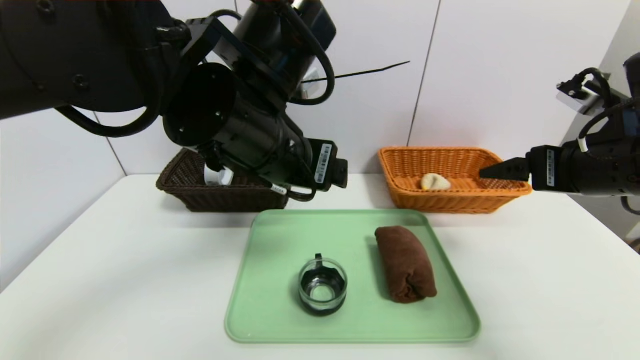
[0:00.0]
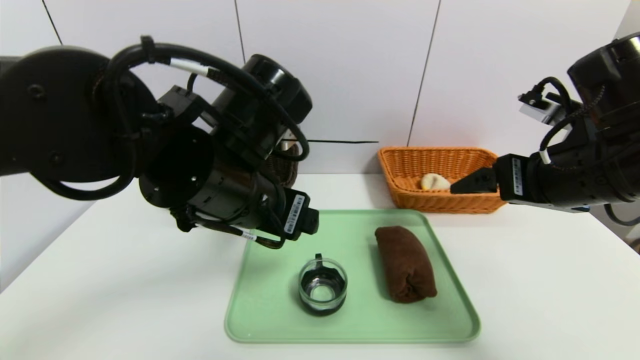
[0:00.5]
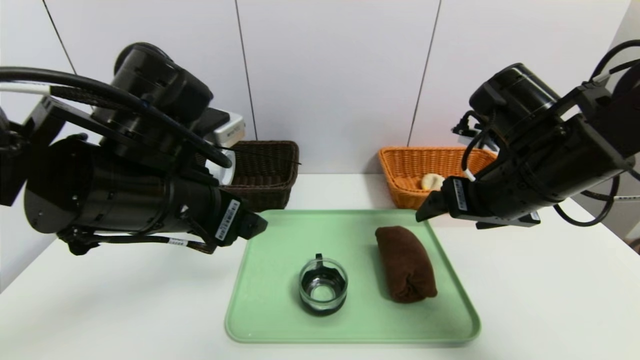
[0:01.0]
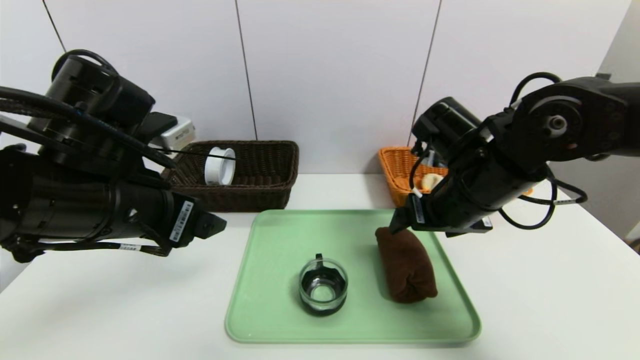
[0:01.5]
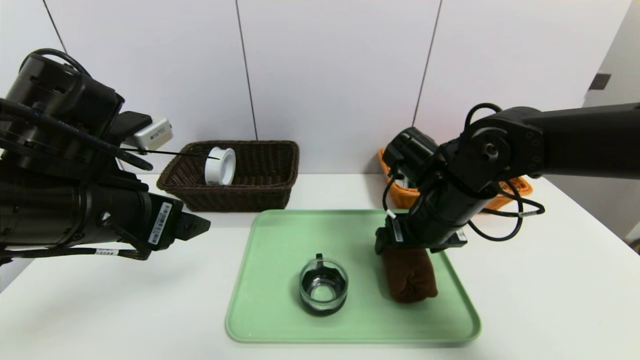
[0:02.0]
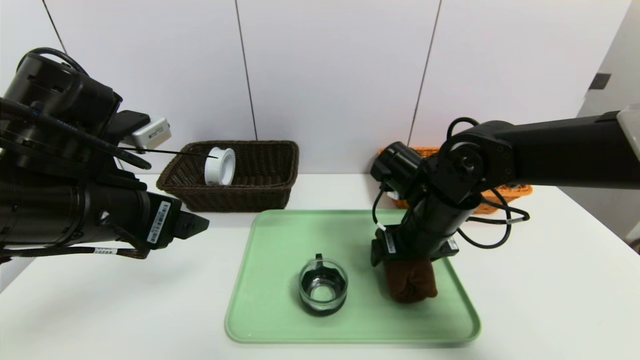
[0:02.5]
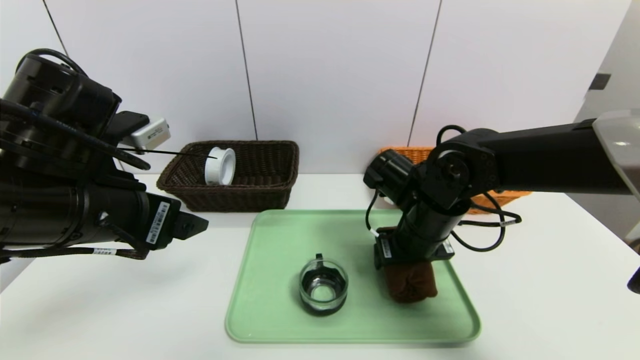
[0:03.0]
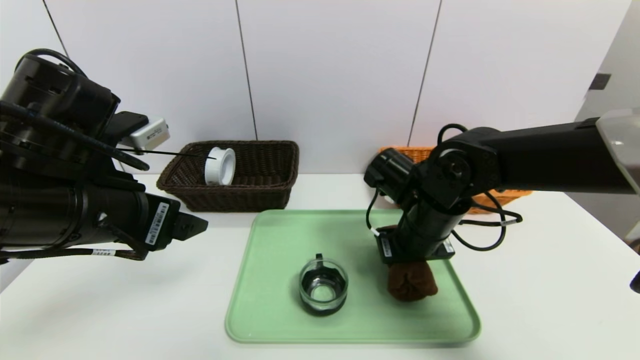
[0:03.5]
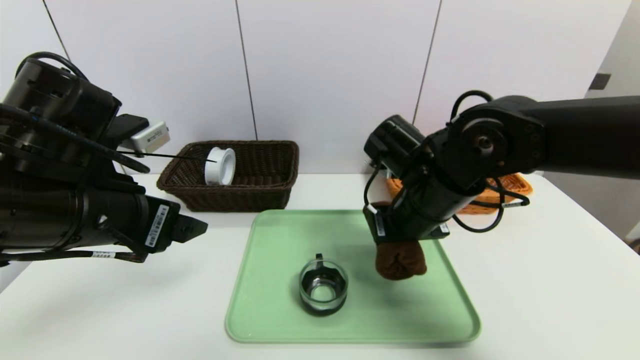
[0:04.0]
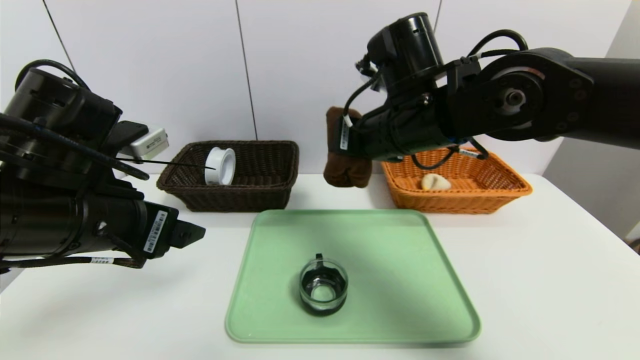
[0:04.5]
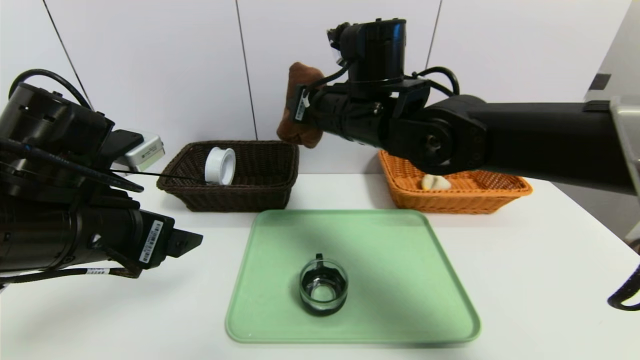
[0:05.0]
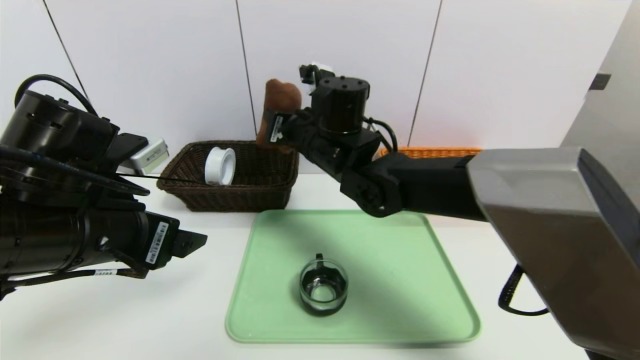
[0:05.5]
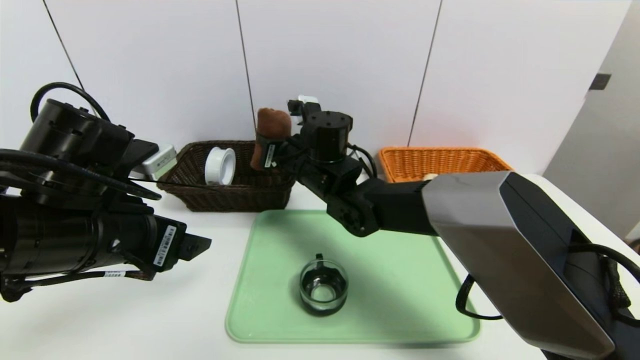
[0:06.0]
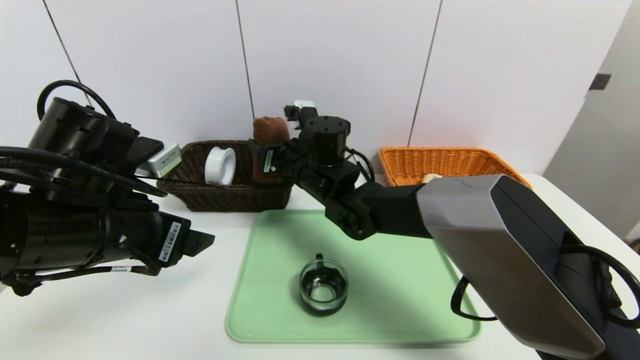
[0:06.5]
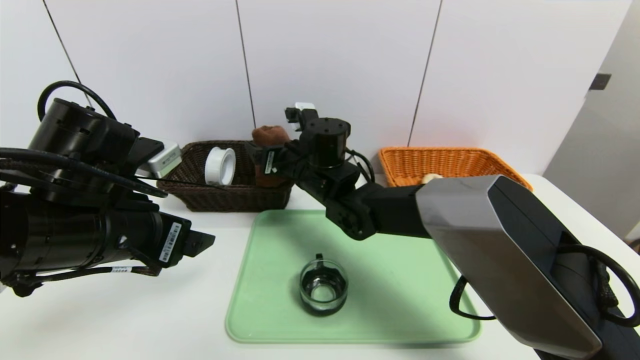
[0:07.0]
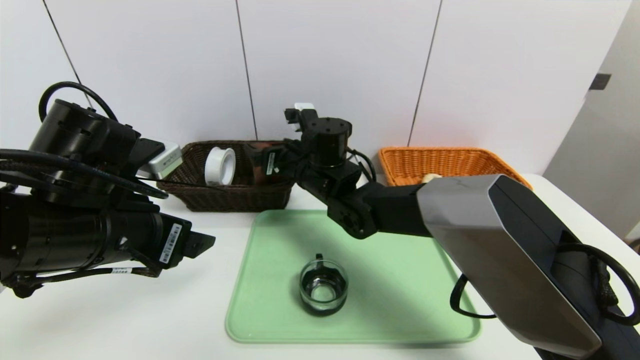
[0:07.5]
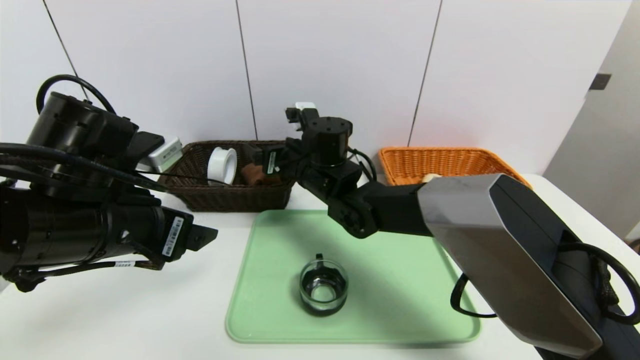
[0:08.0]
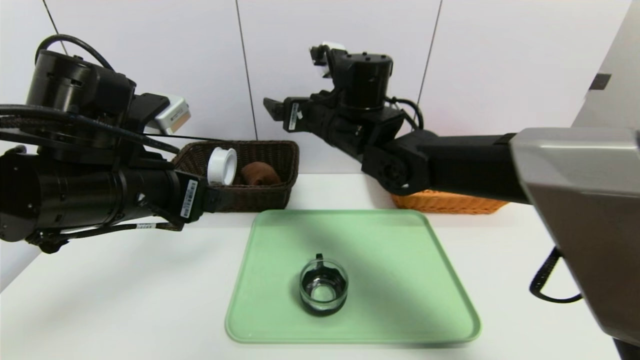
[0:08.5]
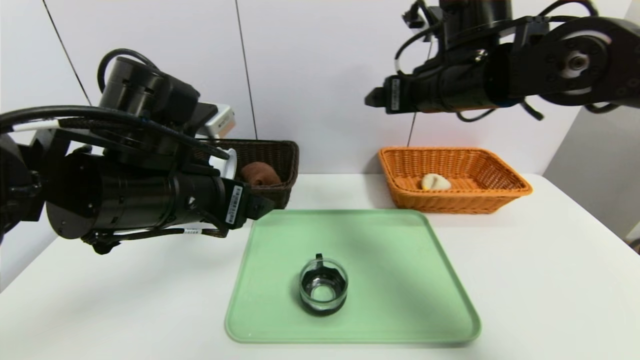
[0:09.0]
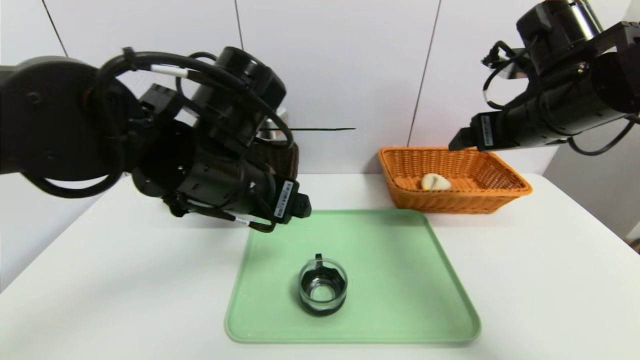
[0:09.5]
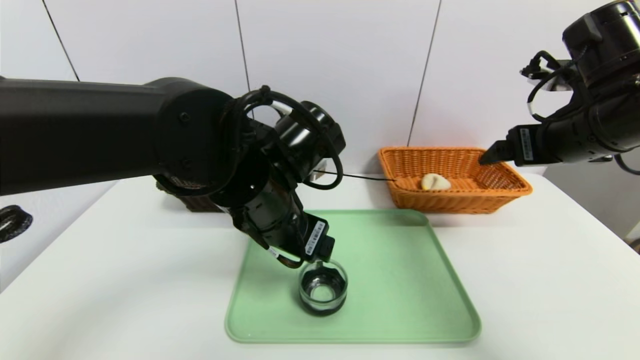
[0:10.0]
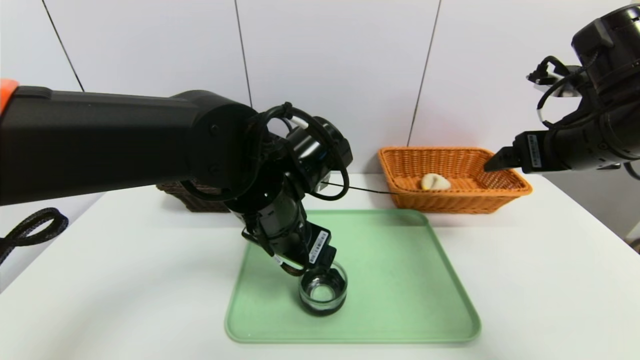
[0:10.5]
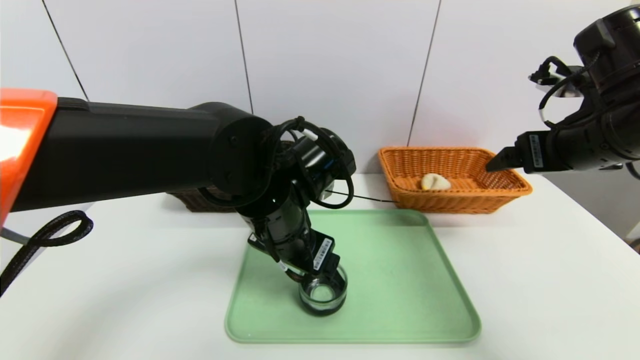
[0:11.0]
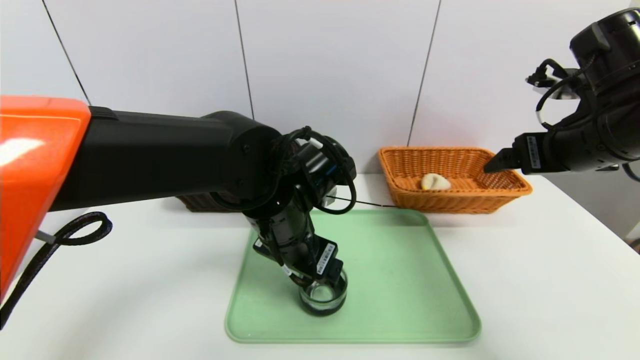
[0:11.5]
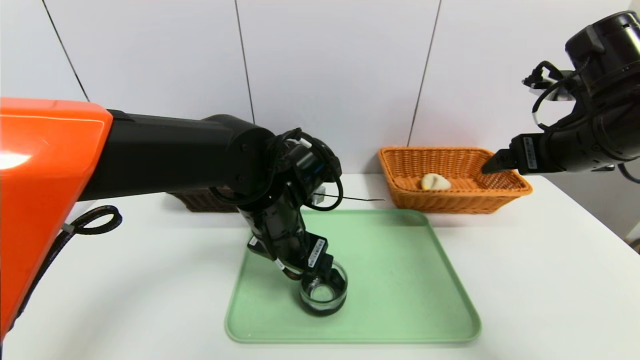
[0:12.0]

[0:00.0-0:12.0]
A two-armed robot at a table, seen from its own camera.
Task of the whole recording: place the food in the right basket with the right gripper, and place the non food items in the left basket with the left gripper.
Step, 0:00.0 to 0:07.5: Grasp the brown towel and put it in the left basket.
0:00.0 to 0:02.0: The left gripper moves to the left, approximately 15 cm. Meanwhile the right gripper moves to the left, downward and forward, some 20 cm.
0:02.0 to 0:04.0: The right gripper closes its fingers.
0:04.0 to 0:06.0: The right gripper moves to the left and forward, approximately 15 cm.
0:06.0 to 0:08.0: The right gripper opens its fingers.
0:08.0 to 0:10.0: The left gripper shifts some 15 cm to the right, while the right gripper is displaced to the right, backward and upward by some 35 cm.
0:10.0 to 0:12.0: The left gripper moves approximately 5 cm.

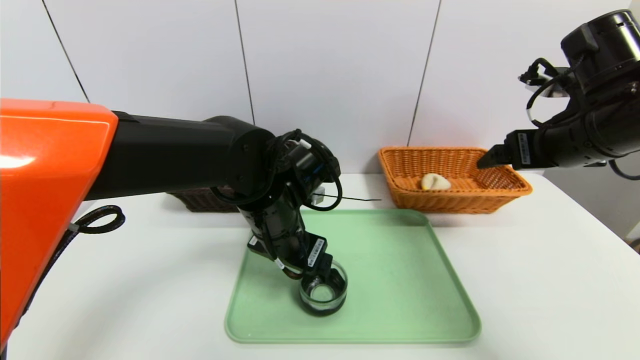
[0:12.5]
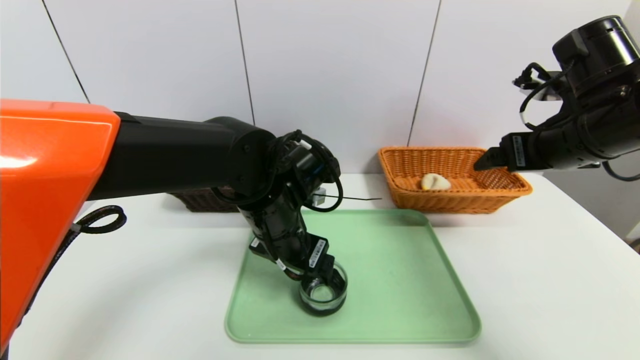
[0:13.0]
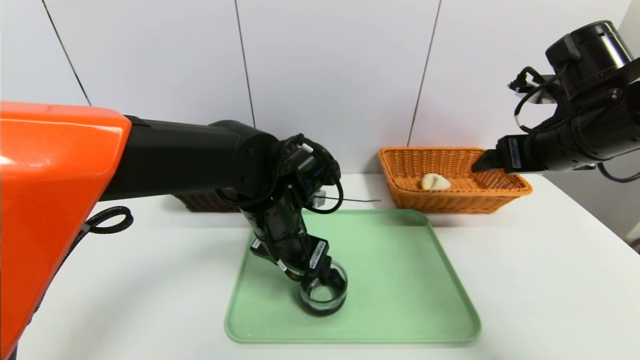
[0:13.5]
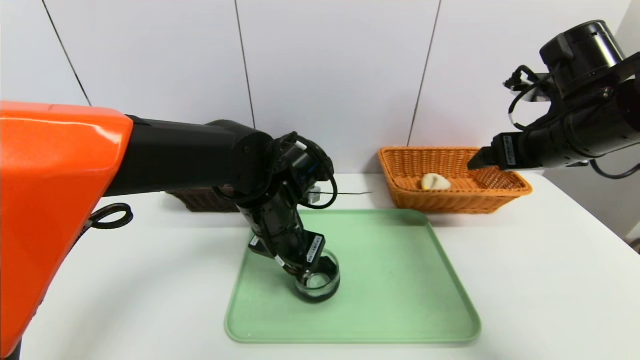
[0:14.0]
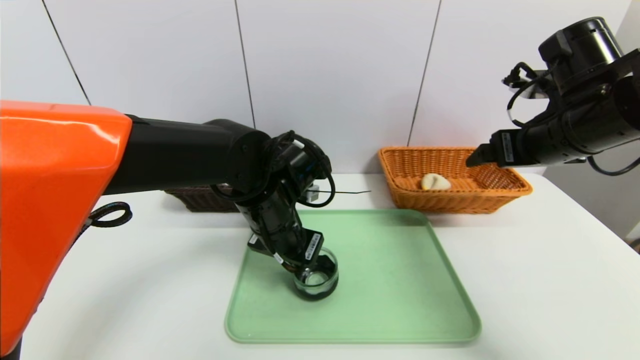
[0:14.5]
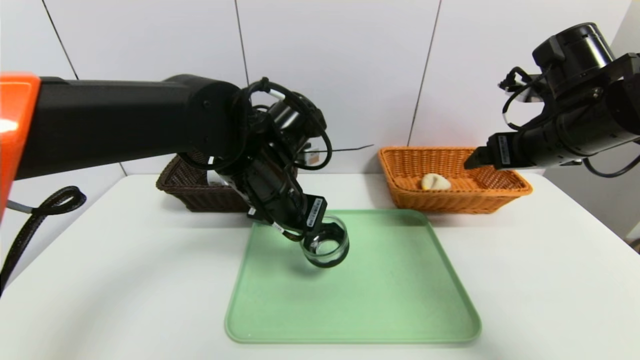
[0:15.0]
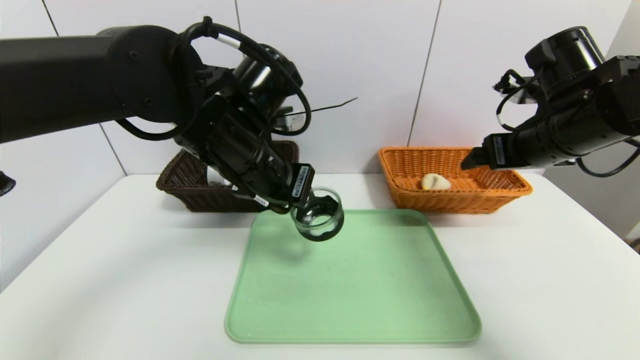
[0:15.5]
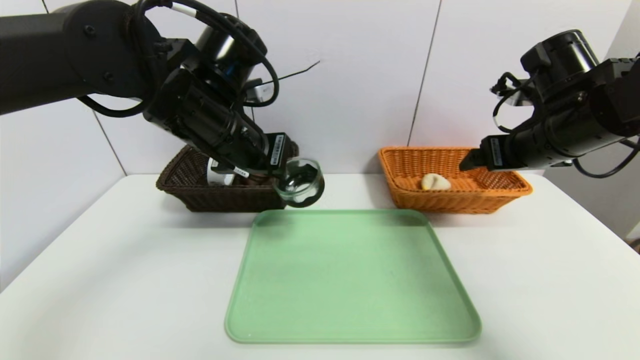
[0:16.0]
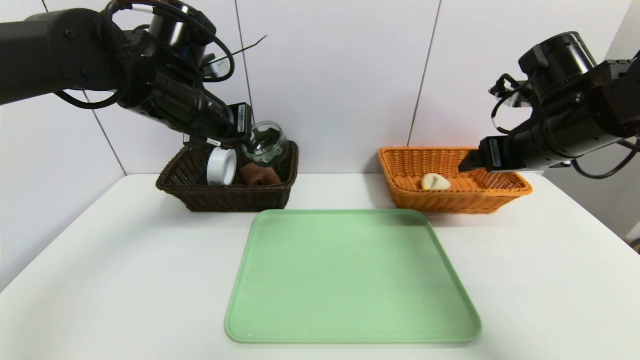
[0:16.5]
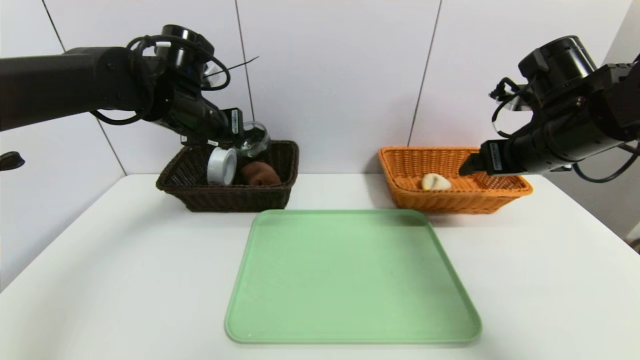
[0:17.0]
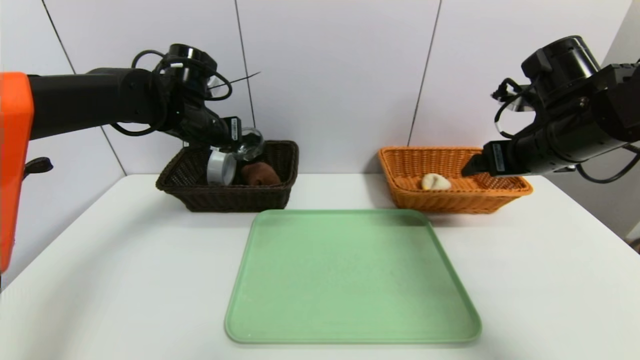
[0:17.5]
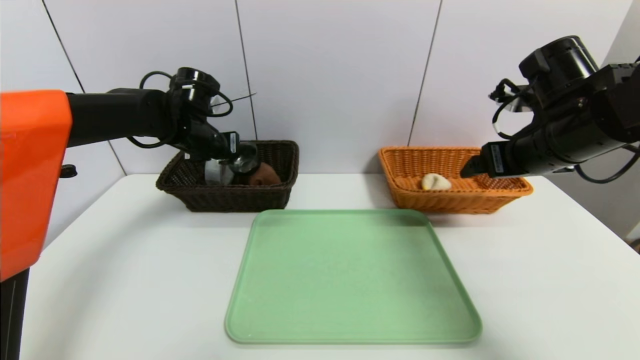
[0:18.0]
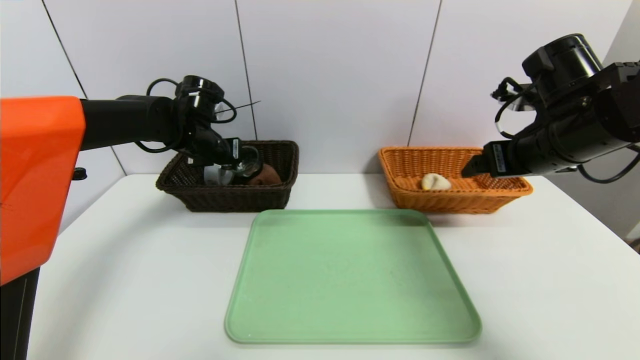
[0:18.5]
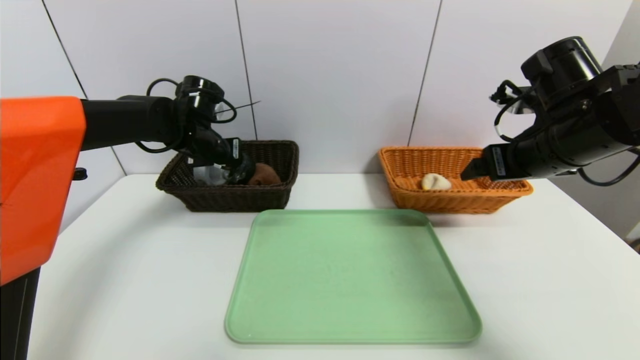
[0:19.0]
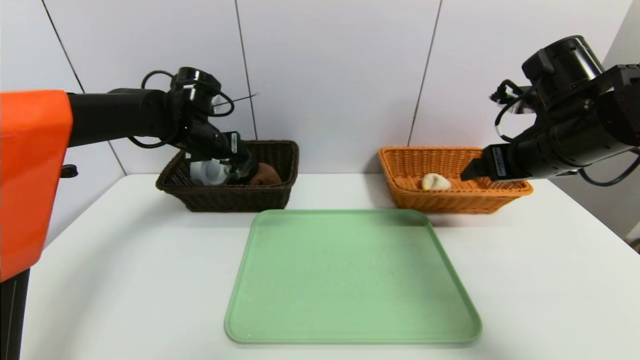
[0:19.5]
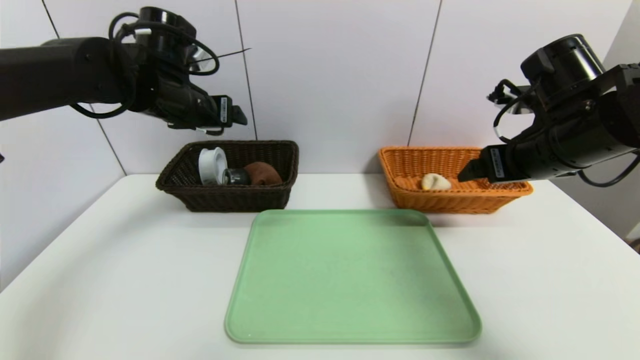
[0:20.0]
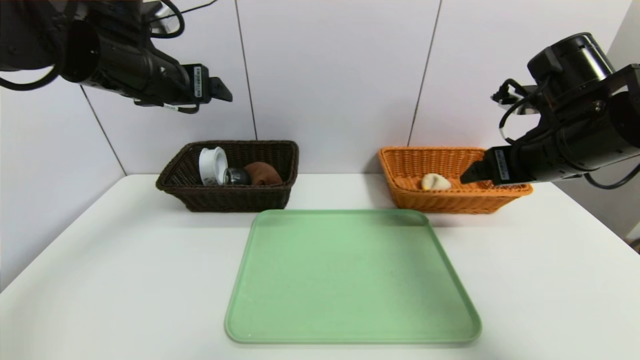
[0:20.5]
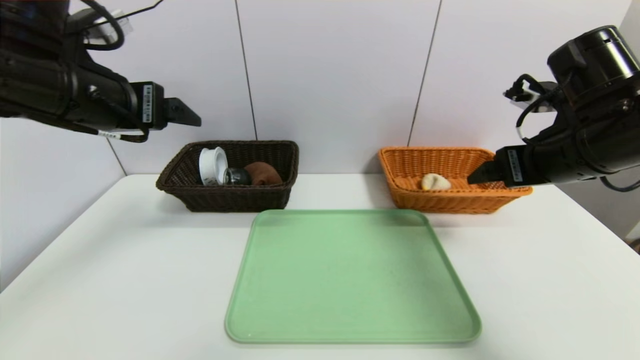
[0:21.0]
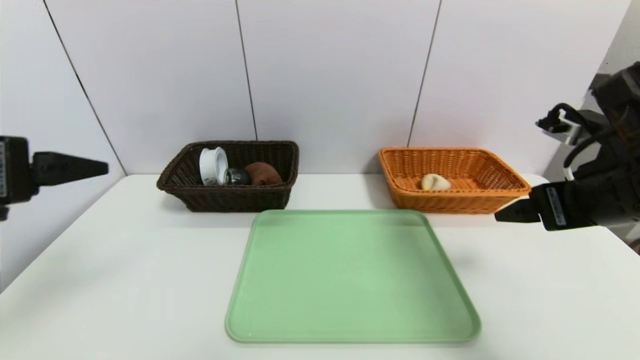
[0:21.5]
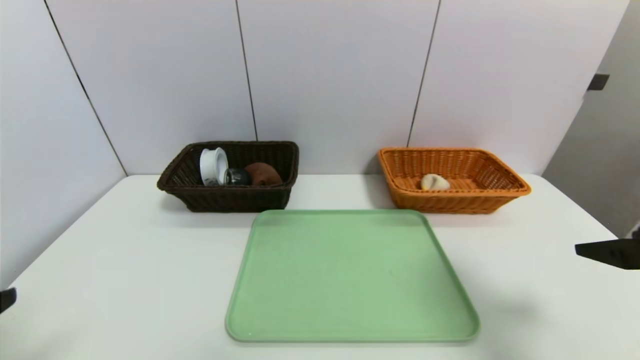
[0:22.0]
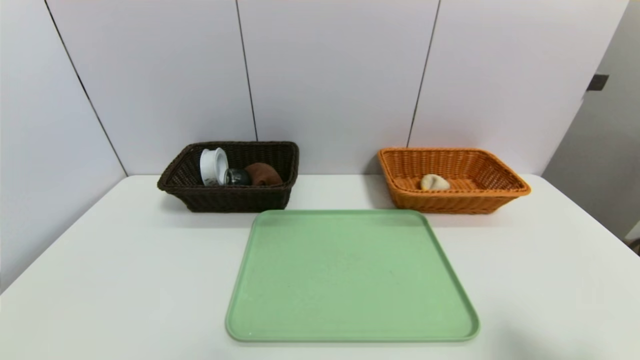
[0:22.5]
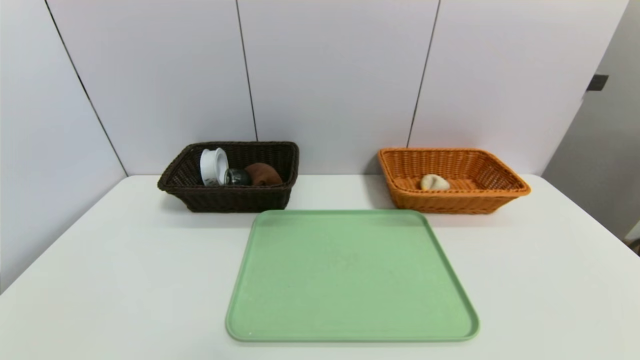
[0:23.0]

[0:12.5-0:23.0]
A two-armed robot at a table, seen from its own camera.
Task of the whole recording: place the food in the right basket with the right gripper, and place the non food items in the left basket with the left gripper.
Step, 0:12.5 to 0:19.5: Grasp the black glass cup and put it in the left basket.
0:12.5 to 0:14.5: The left gripper closes.
0:14.5 to 0:16.5: The left gripper moves upward and to the left, about 15 cm.
0:16.5 to 0:19.0: The left gripper shifts approximately 15 cm forward and downward, and opens.
0:19.0 to 0:21.0: The left gripper is displaced backward and upward by about 25 cm, and opens its fingers.
0:21.0 to 0:23.0: The right gripper goes some 30 cm backward; the left gripper heads backward and downward, covering some 35 cm.
